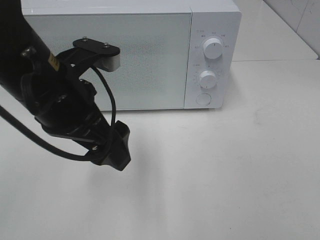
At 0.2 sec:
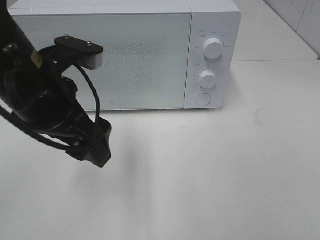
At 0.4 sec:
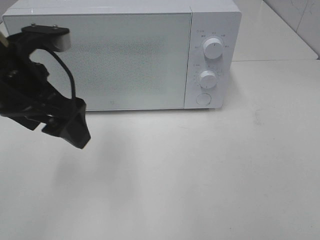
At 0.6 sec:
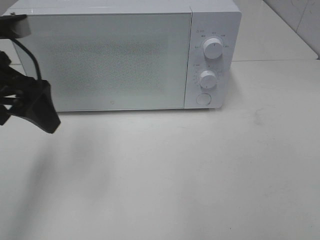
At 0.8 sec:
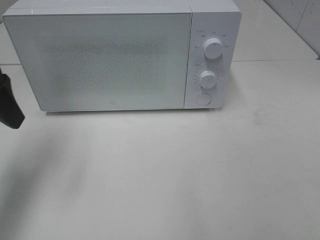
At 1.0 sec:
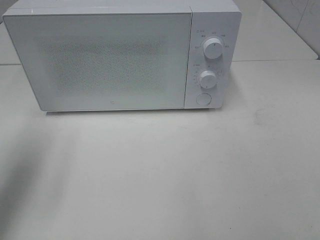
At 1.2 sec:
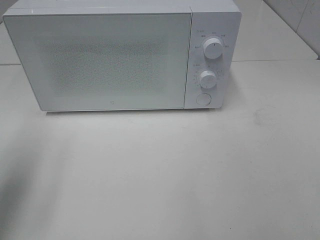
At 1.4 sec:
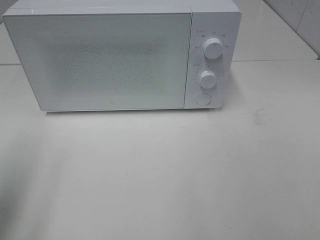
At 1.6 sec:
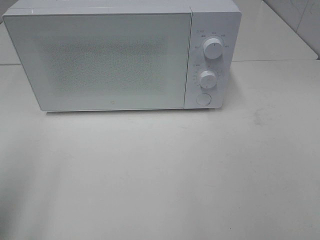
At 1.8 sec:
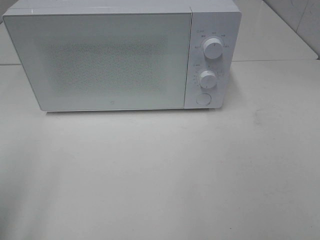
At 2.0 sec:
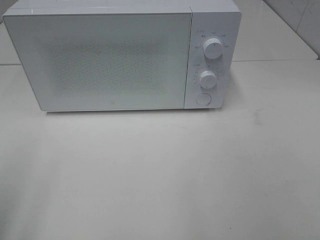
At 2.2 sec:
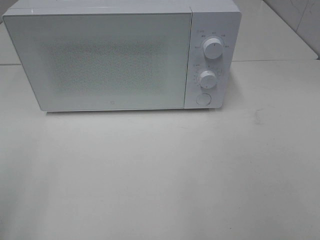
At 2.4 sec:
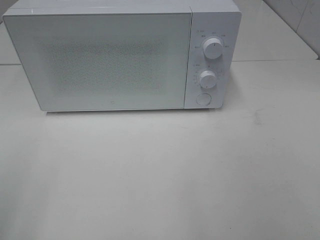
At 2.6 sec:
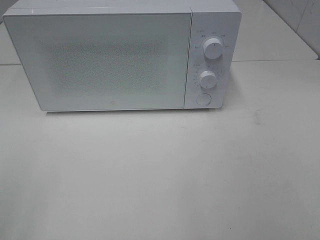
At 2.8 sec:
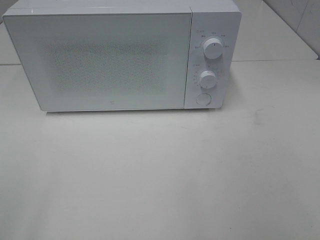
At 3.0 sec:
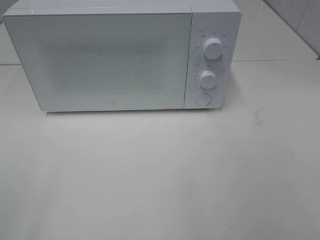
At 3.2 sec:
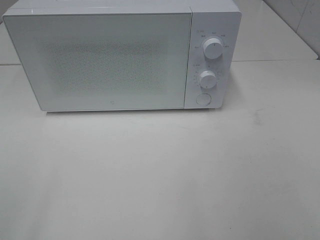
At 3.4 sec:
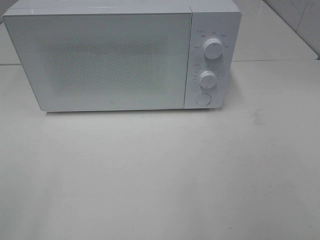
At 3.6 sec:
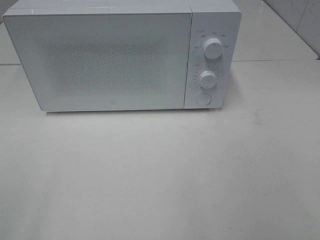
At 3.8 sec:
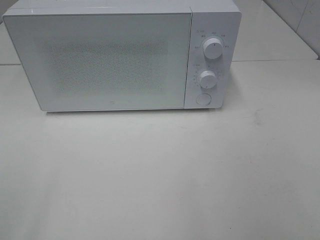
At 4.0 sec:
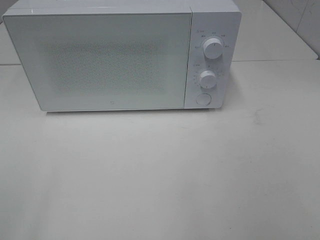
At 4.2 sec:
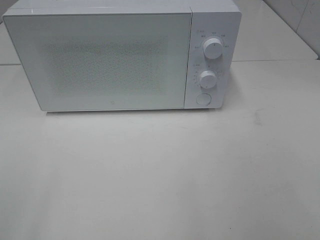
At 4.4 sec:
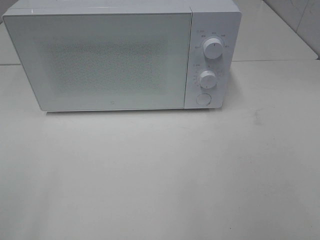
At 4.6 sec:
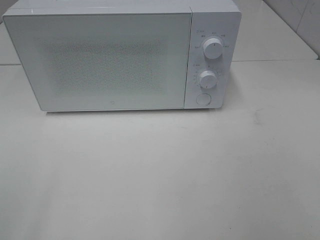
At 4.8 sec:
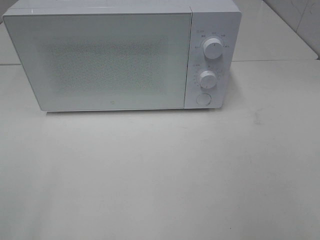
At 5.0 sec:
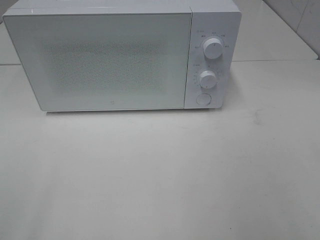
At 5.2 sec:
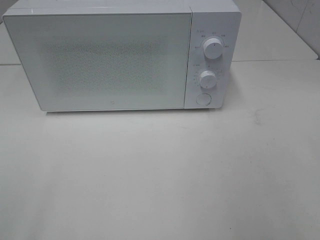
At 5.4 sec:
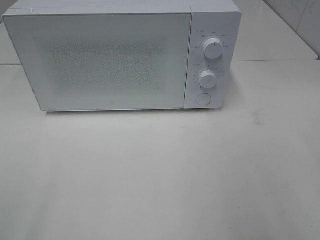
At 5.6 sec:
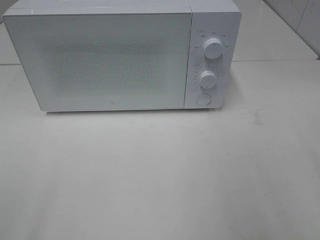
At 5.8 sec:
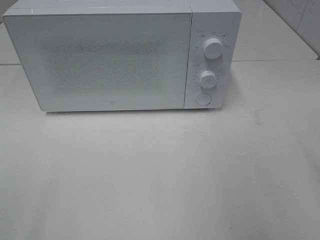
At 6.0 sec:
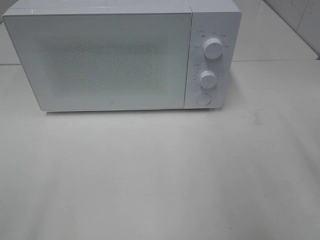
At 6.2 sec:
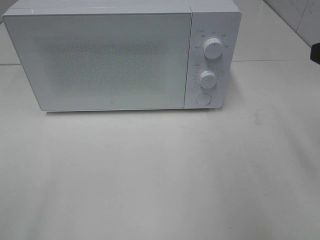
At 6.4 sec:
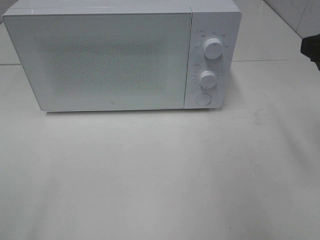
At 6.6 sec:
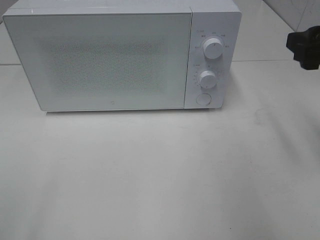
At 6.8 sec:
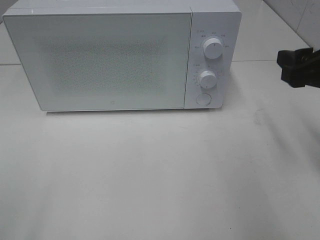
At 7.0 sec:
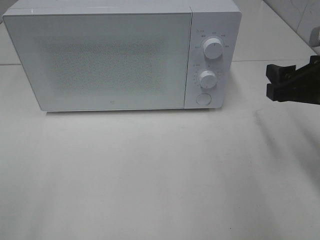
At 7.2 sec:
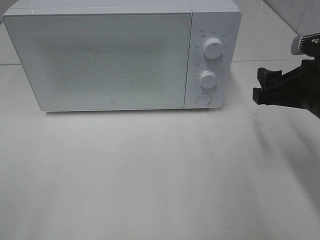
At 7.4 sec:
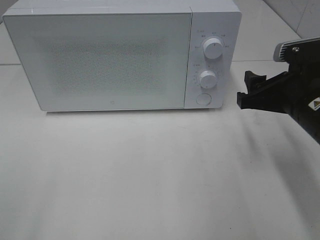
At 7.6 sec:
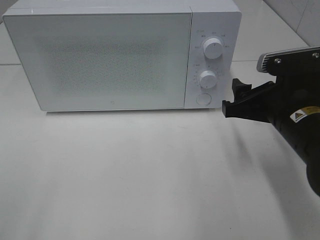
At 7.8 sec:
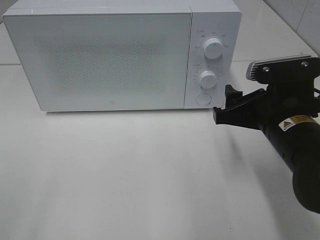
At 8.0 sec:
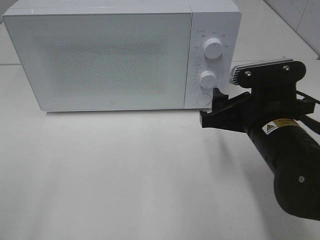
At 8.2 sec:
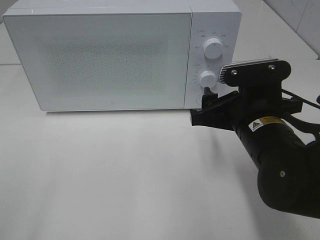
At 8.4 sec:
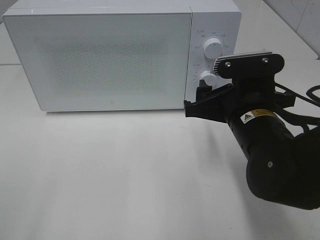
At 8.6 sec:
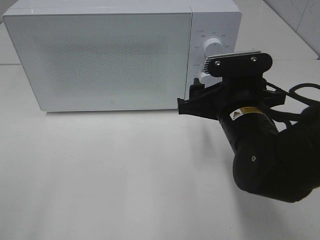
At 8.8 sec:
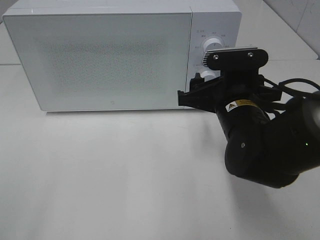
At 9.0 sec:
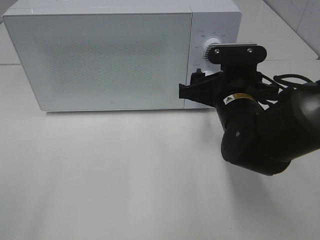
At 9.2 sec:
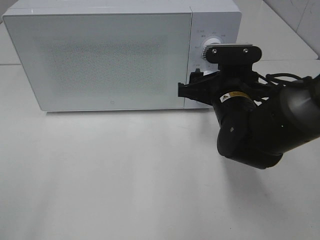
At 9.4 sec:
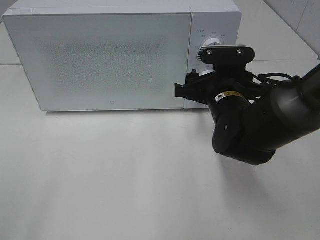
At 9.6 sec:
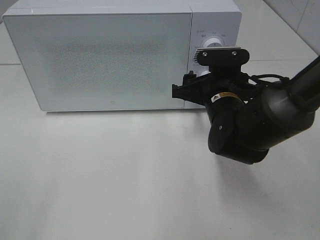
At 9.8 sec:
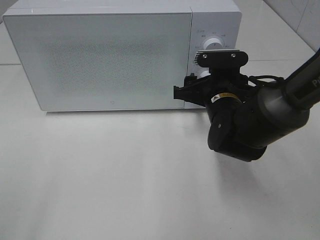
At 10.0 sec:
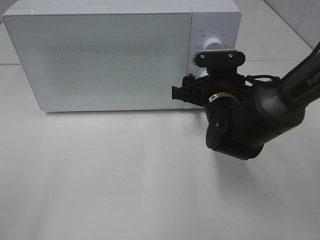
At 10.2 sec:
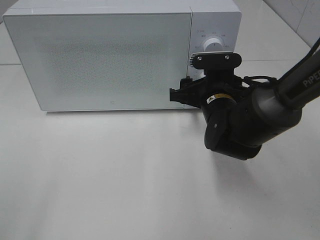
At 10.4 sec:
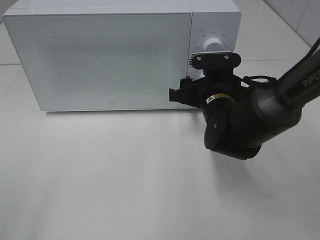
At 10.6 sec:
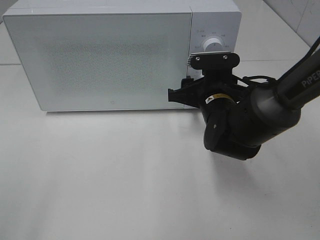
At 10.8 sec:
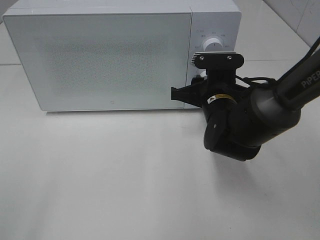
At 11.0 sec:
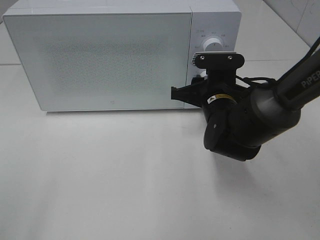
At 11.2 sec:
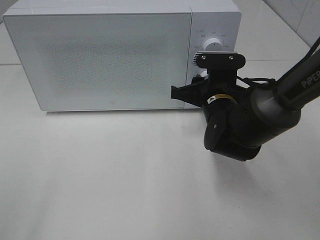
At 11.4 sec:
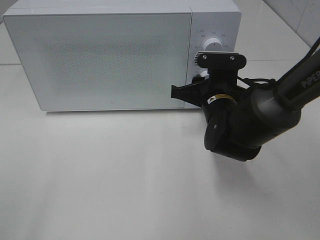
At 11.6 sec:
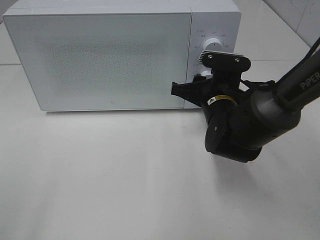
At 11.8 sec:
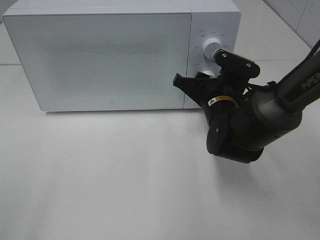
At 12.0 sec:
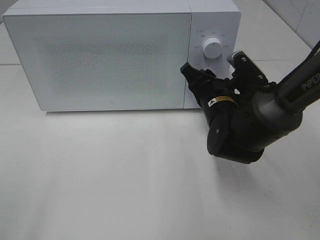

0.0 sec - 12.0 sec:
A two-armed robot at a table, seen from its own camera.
Task of the whole recording: Heat the burger.
0.0 sec - 1.6 sec: The left gripper goes roughly 20 cm to the left and backward.
3.0 sec - 4.4 sec: Both grippers stay put.
6.0 sec - 7.6 sec: The right gripper moves downward, to the left and forward, approximately 15 cm.
7.6 sec - 9.0 sec: The right gripper is displaced to the left and forward by approximately 10 cm.
9.0 sec - 10.4 sec: The right gripper moves about 5 cm.

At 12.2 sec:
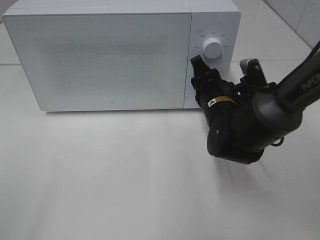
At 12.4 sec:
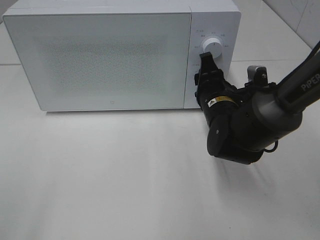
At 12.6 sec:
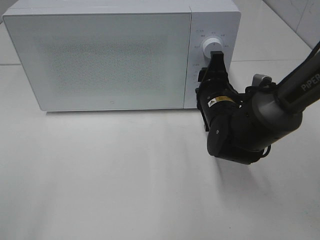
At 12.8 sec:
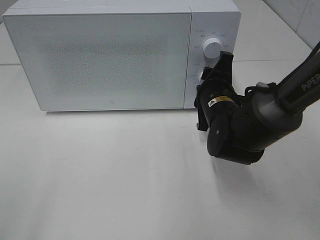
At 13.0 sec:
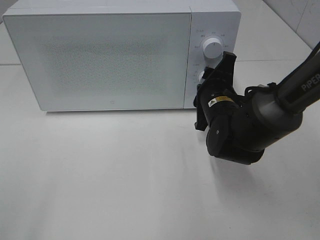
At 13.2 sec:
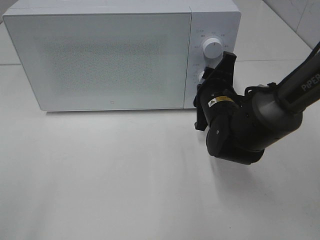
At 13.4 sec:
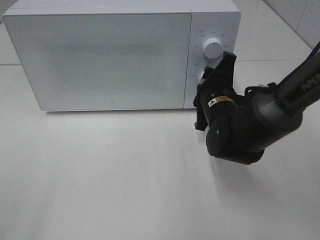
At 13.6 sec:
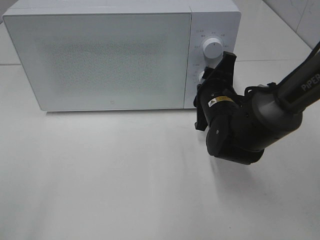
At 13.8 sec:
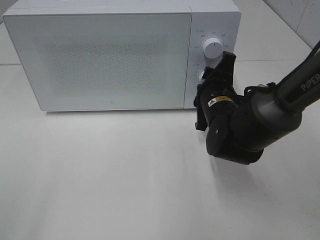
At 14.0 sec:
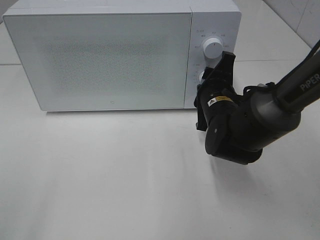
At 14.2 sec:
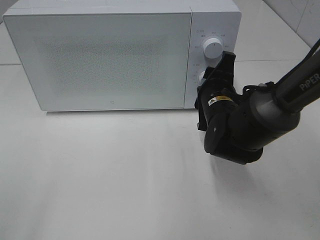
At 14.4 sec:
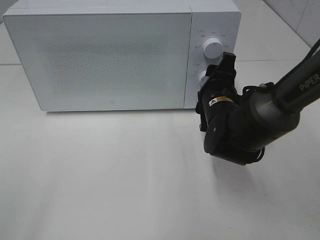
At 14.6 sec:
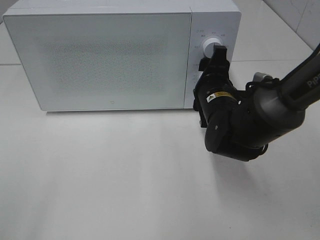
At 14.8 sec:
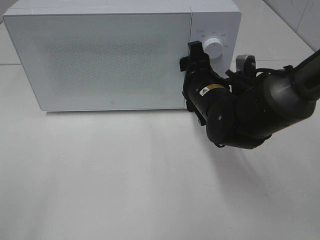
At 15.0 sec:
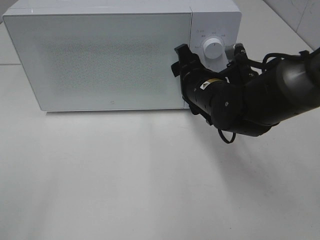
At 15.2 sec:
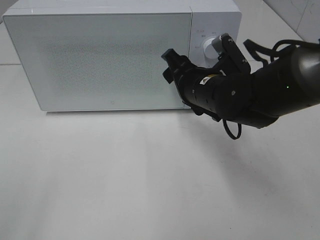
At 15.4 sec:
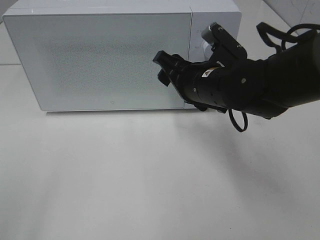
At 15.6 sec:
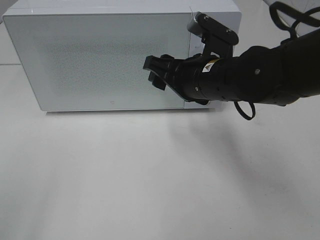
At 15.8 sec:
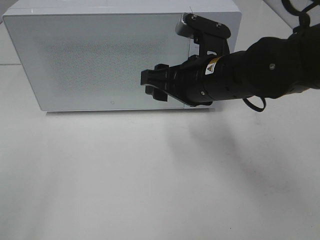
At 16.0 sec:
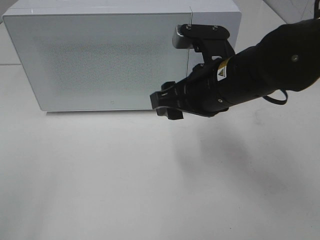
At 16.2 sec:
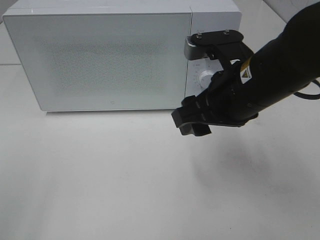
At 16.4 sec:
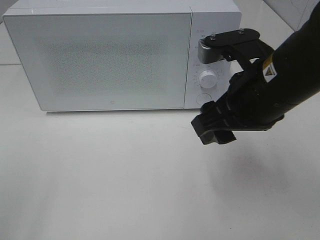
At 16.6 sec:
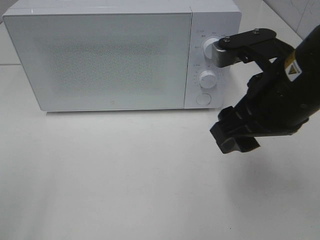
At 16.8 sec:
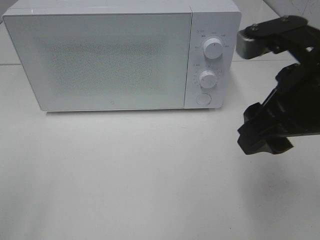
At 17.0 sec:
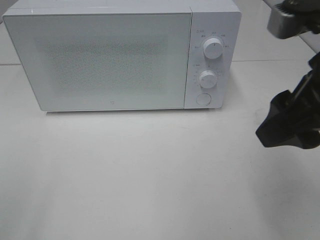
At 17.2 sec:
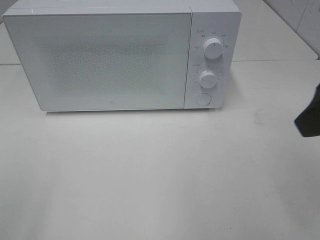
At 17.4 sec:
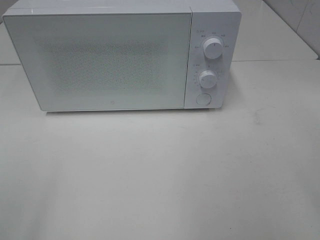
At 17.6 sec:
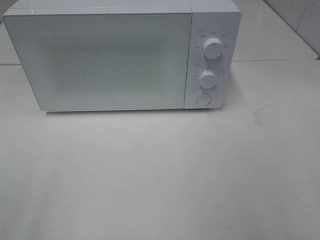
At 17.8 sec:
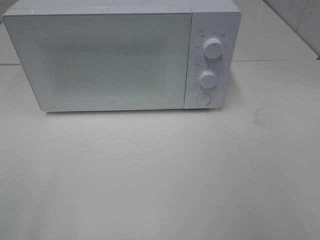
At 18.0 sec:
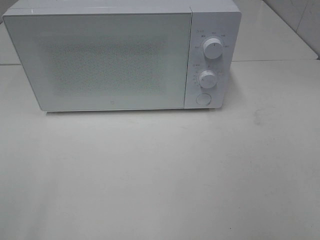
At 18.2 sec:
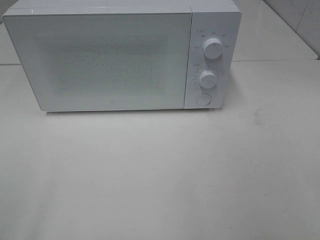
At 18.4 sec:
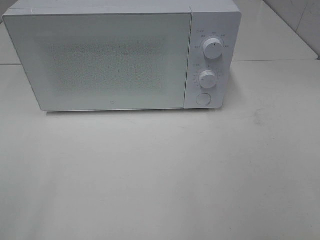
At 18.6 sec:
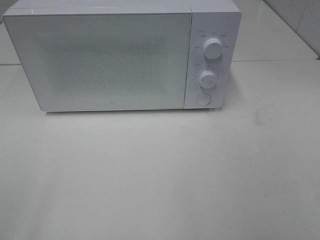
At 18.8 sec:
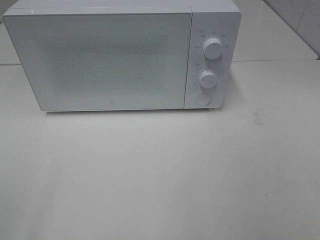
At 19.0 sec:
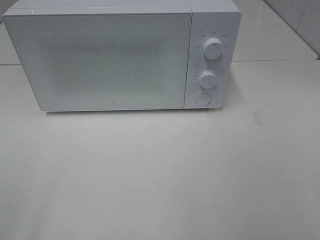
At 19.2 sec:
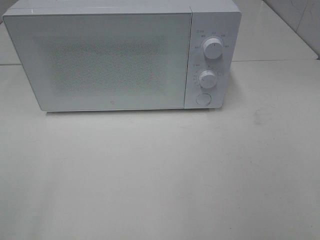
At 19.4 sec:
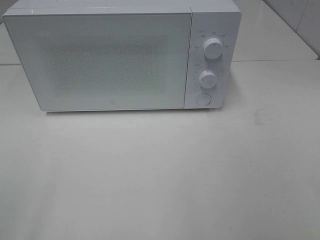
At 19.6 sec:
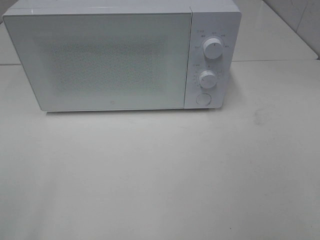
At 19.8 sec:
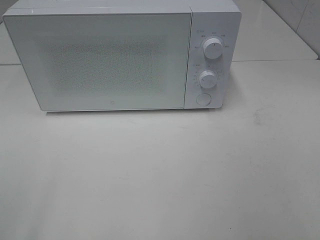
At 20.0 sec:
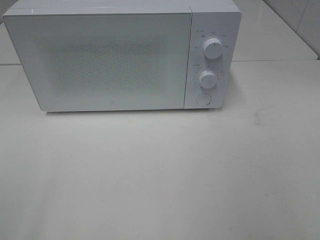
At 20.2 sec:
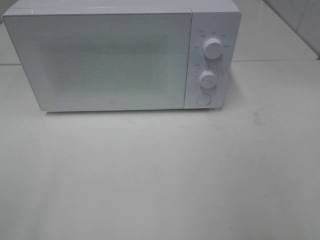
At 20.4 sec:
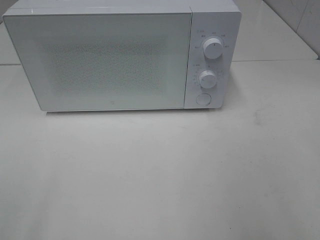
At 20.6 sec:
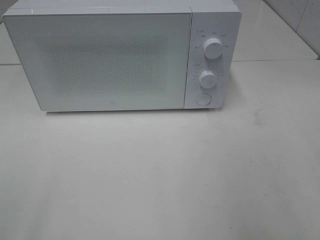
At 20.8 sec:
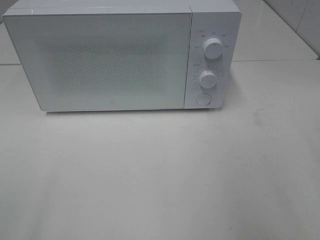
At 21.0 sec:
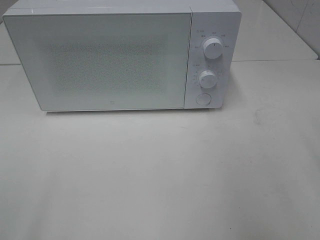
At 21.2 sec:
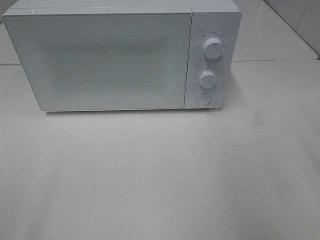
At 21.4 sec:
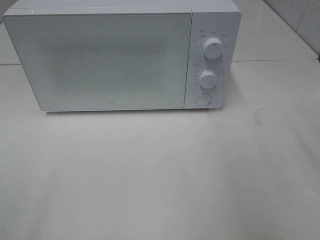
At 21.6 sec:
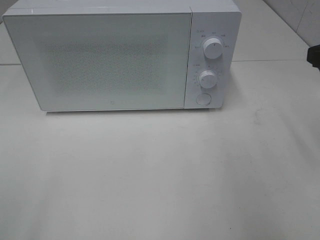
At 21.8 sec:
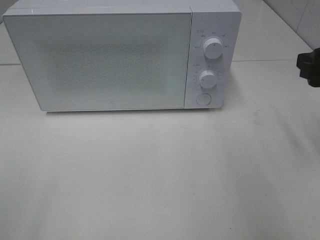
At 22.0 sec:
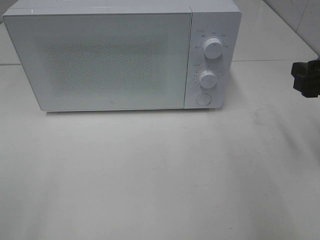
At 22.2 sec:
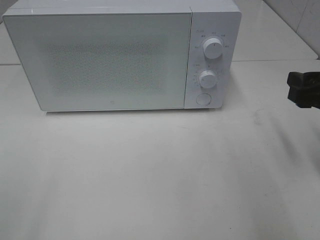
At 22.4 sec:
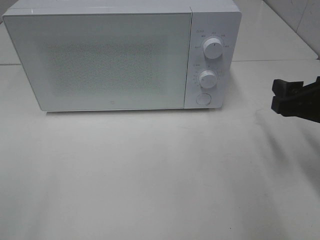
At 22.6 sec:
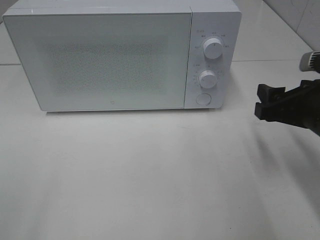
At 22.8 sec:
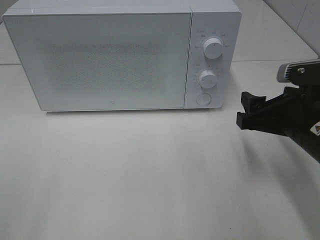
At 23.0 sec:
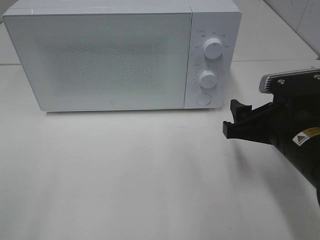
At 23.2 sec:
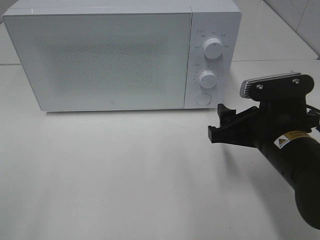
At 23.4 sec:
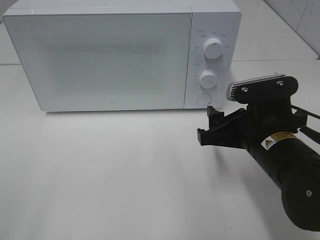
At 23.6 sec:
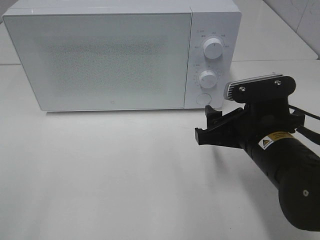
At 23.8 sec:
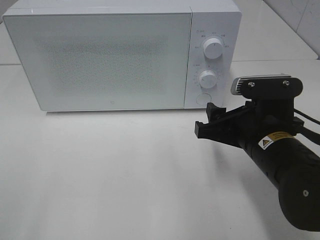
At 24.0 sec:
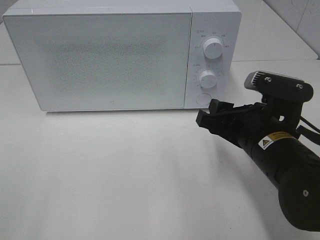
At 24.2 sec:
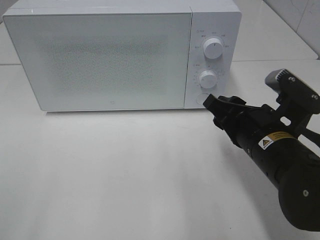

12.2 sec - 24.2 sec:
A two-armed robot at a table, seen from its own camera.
Task of the whole recording: Heat the burger.
Step, 12.2 sec - 14.2 sec: Right hand: twist timer button.
15.2 sec - 16.6 sec: The right gripper heads backward and upward, covering approximately 15 cm.
16.6 sec - 18.2 sec: The right gripper shifts roughly 25 cm backward and to the right.
21.2 sec - 22.6 sec: The right gripper shifts about 10 cm downward.
22.6 sec - 24.2 sec: The right gripper moves to the left, roughly 10 cm.
